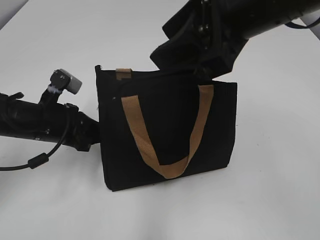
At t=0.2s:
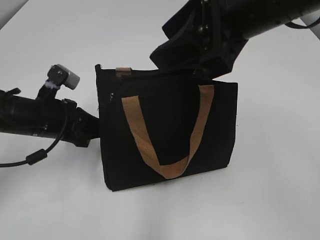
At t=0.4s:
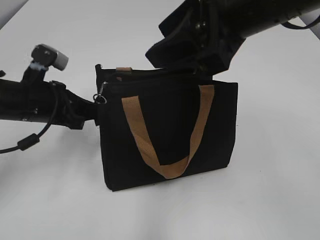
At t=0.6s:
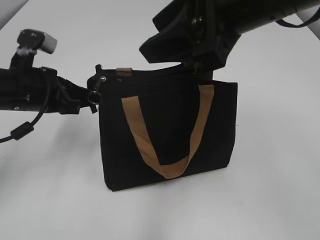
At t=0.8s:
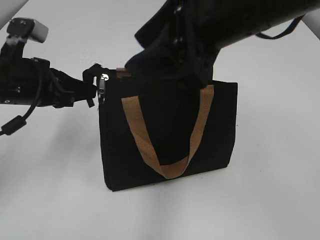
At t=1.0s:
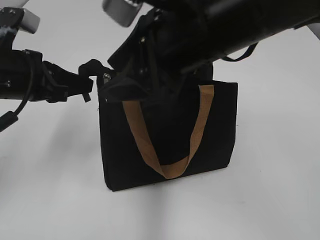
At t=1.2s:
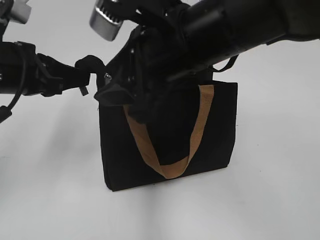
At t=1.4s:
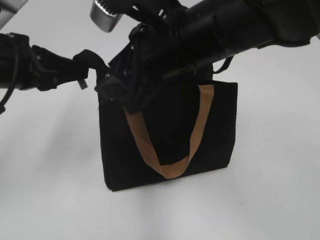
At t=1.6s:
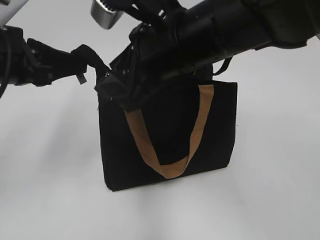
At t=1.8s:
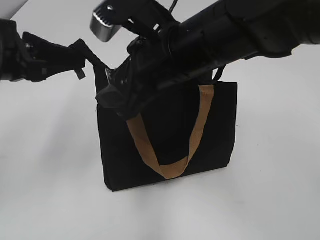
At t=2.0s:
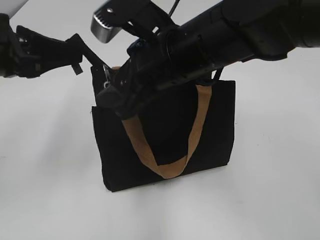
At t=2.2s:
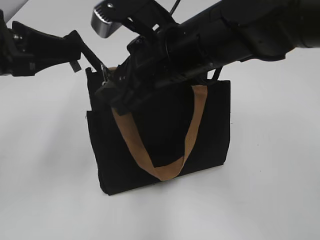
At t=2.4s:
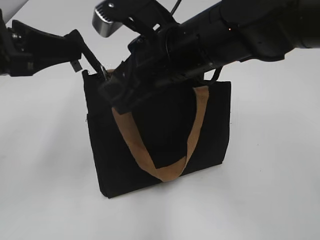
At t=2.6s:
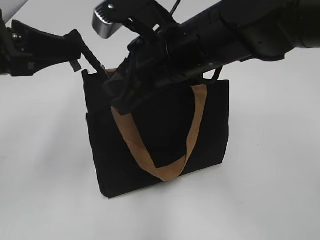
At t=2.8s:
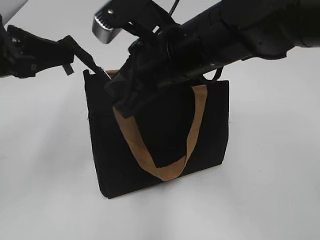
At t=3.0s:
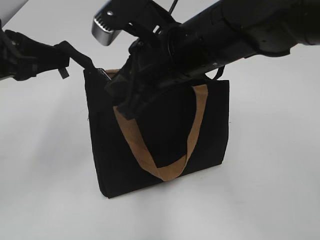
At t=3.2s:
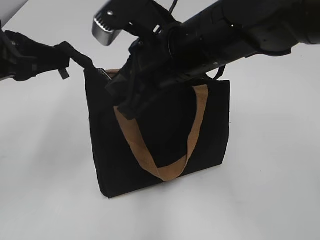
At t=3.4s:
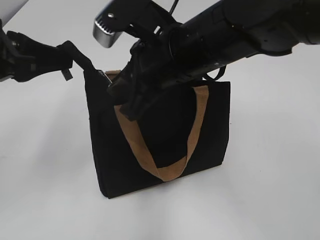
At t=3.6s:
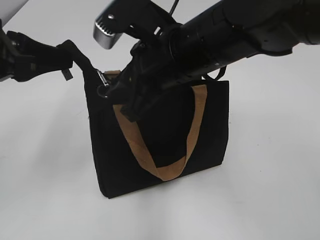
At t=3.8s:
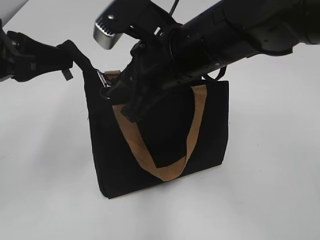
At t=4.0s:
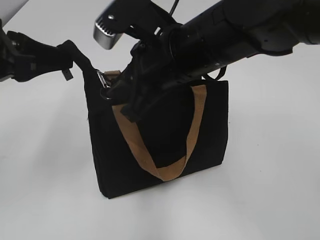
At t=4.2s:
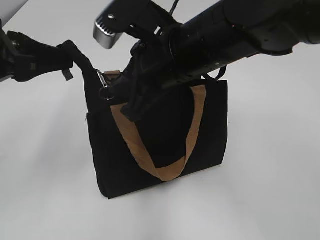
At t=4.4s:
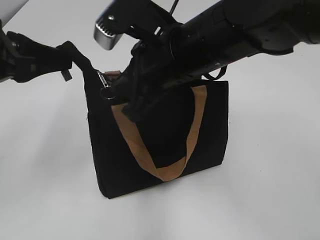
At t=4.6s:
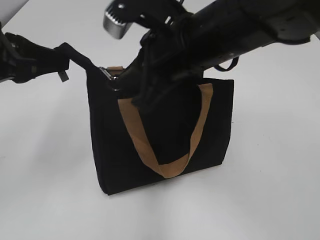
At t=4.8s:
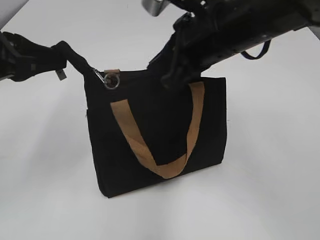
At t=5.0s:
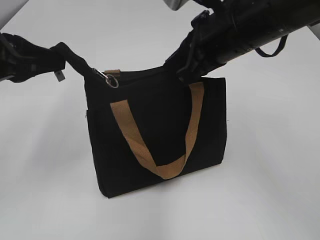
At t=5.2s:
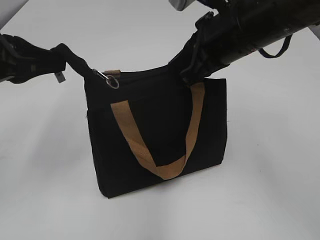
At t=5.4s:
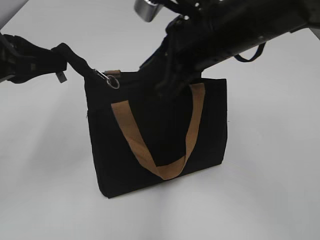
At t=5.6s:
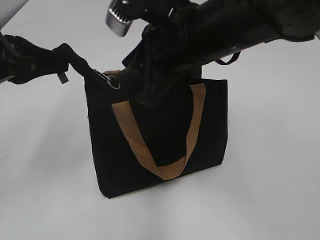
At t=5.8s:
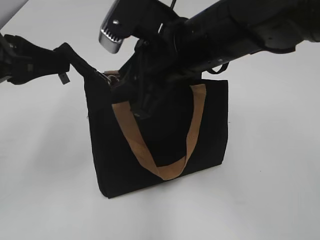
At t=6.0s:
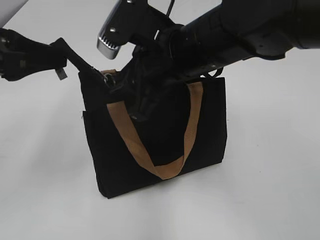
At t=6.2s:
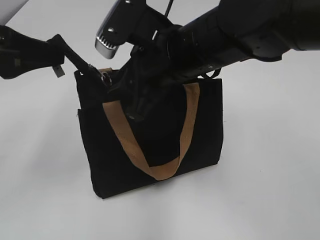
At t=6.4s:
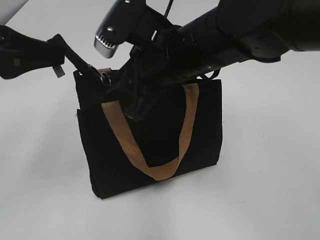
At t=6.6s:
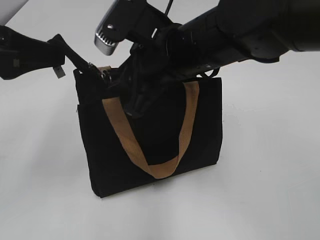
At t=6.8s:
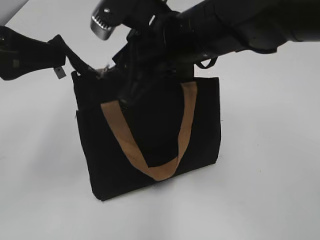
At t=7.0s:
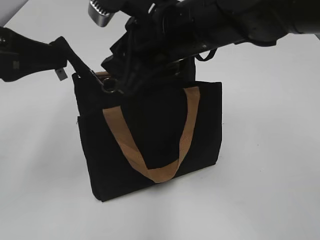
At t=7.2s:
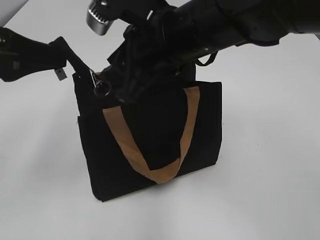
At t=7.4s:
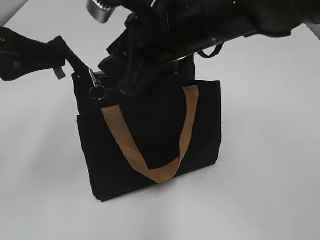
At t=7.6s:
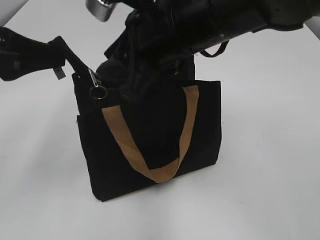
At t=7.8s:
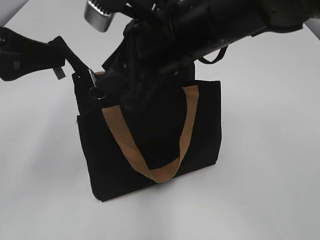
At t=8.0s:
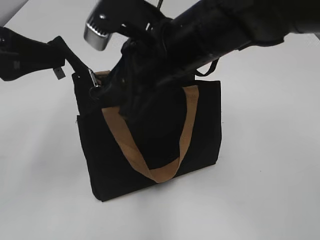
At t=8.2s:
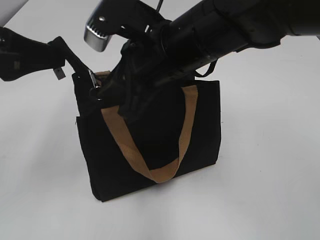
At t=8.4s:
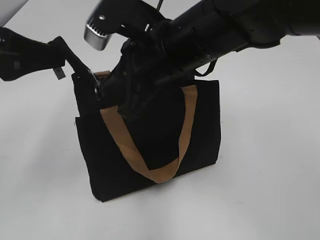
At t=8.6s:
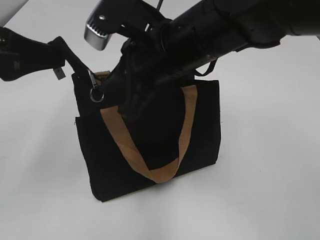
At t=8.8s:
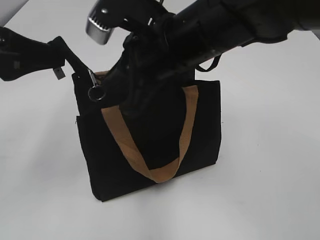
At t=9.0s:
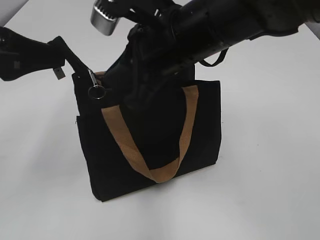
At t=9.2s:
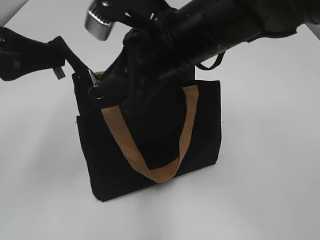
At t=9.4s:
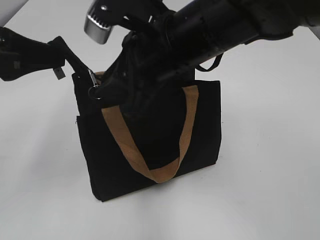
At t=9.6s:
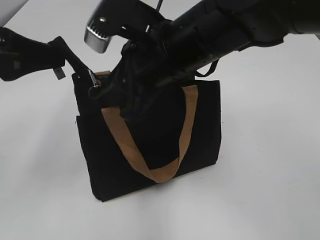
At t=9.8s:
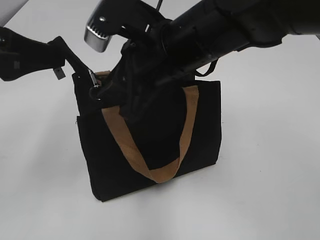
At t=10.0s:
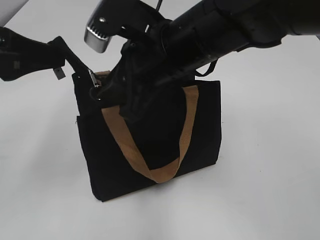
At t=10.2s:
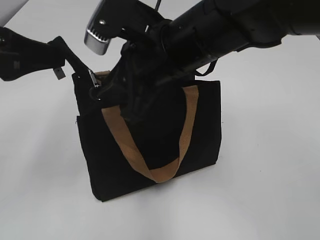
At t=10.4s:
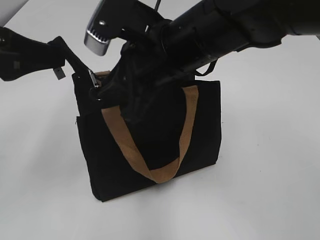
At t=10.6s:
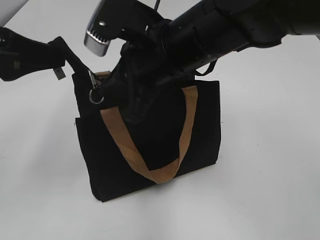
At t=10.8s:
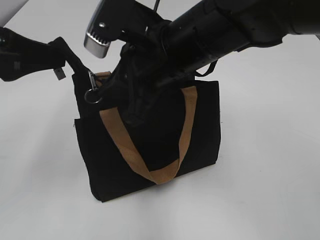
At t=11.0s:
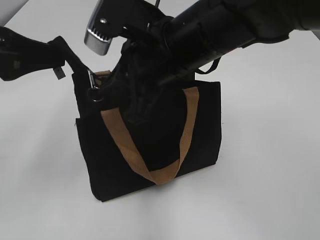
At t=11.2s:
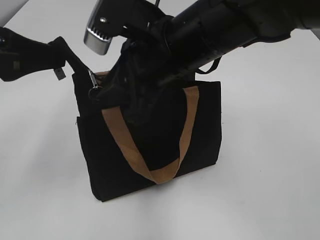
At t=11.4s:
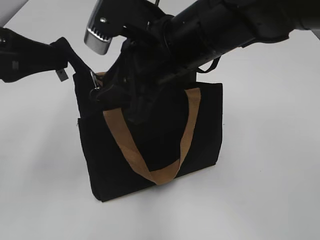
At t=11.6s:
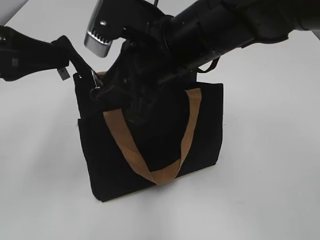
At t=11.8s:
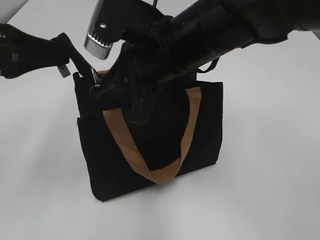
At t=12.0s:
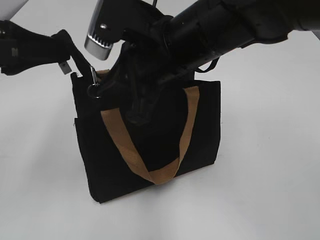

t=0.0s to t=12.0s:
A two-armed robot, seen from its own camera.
t=0.0s to t=1.6s: The right gripper shifts roughly 10 cm to the left and downward. The left gripper shifts some 15 cm upward.
t=1.6s to t=3.0s: The right gripper closes.
t=3.0s to t=4.4s: The two grippers keep their place.
t=4.4s to t=6.0s: The right gripper opens up.
t=6.0s to t=7.6s: The grippers move only a little.
t=7.6s to t=9.0s: The right gripper closes.
t=9.0s to t=12.0s: The grippers move only a little.

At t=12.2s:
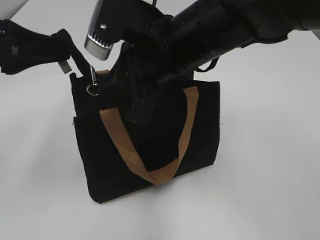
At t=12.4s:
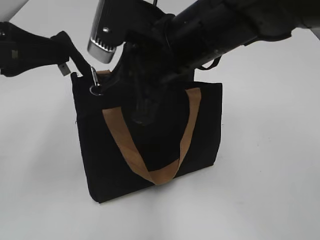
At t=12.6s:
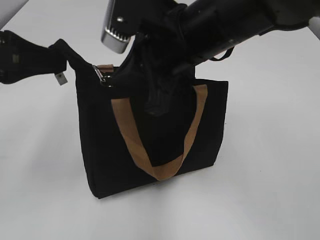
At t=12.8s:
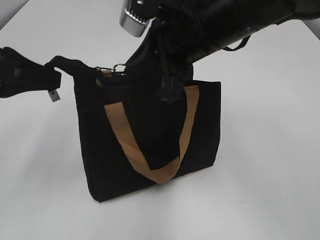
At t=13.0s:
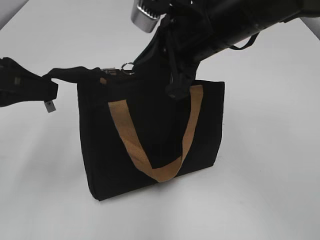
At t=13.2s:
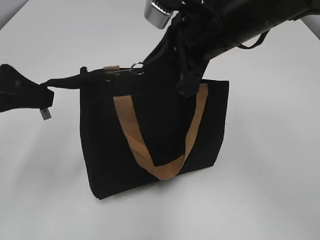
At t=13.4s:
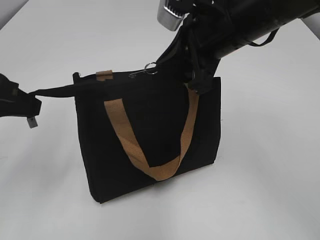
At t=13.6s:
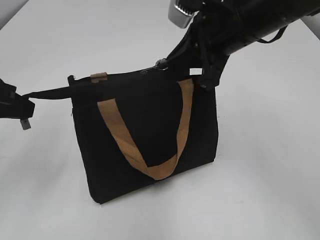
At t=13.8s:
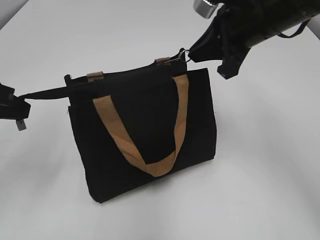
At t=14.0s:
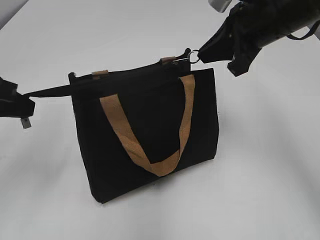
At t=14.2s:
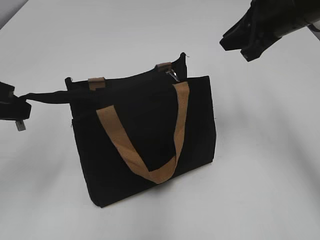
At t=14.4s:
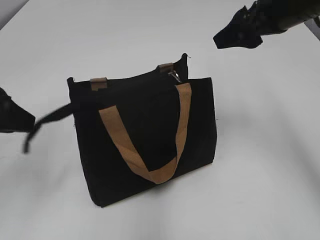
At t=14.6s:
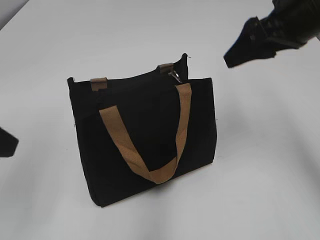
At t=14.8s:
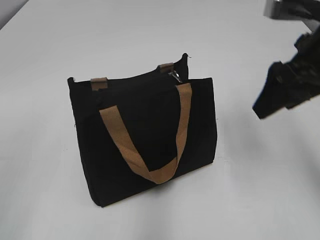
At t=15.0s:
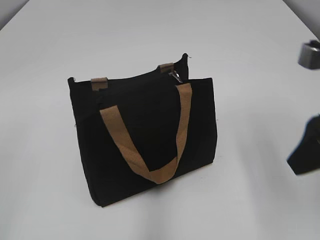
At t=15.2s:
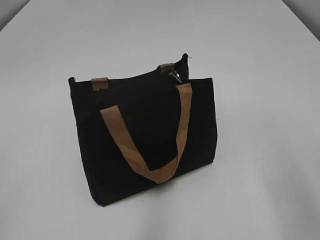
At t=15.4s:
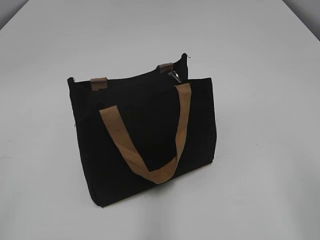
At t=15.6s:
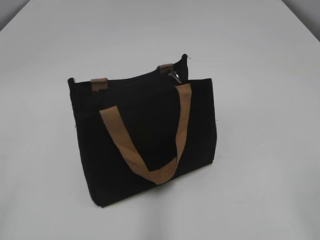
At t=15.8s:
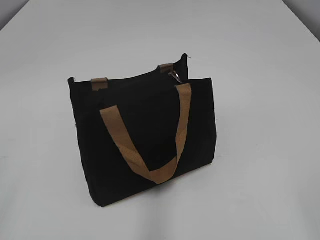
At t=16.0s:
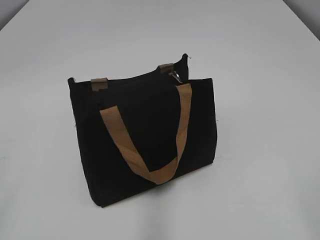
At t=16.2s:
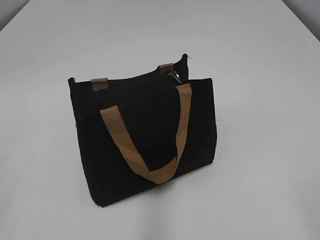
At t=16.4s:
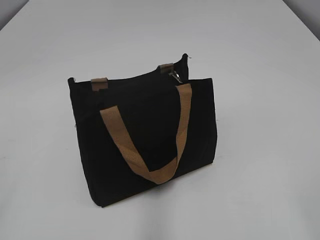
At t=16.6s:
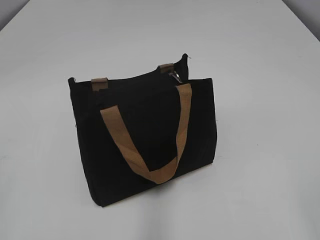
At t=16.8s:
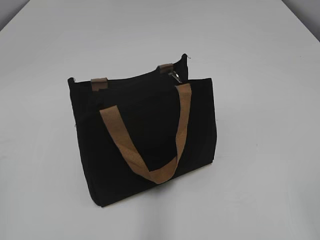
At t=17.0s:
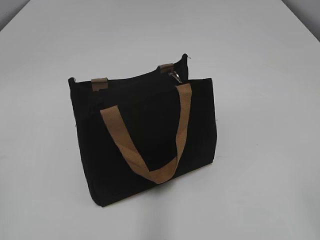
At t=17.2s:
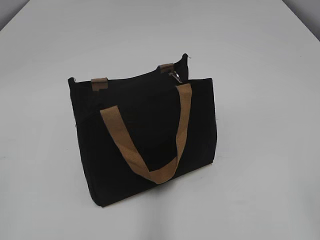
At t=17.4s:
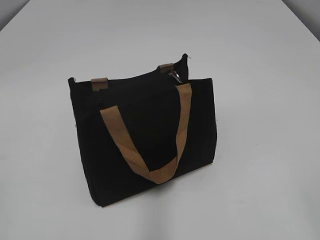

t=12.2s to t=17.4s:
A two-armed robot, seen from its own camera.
Step, t=14.2s to t=14.4s: Grab the zipper with your left hand.
t=12.2s to t=14.0s: The right gripper moves to the right and forward, approximately 15 cm.
t=14.0s to t=15.6s: The right gripper shifts approximately 30 cm backward, and opens. Meanwhile the left gripper moves backward, about 20 cm, and opens its fingers.
